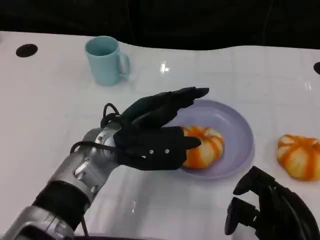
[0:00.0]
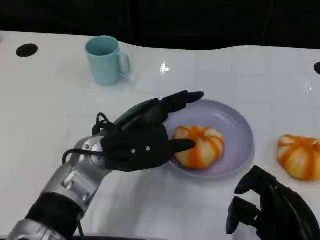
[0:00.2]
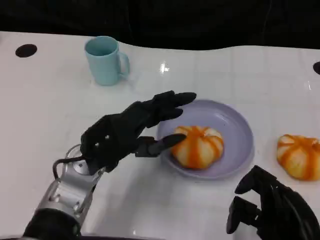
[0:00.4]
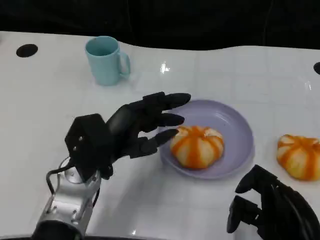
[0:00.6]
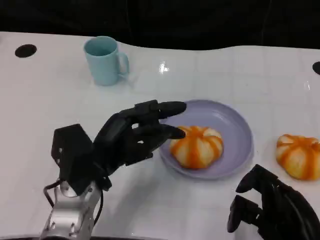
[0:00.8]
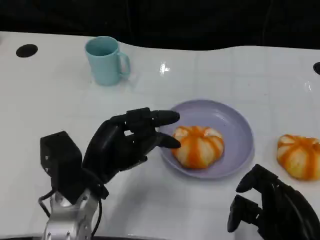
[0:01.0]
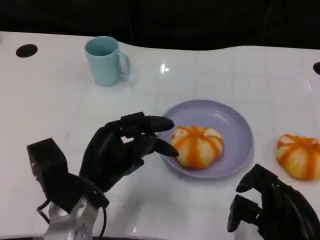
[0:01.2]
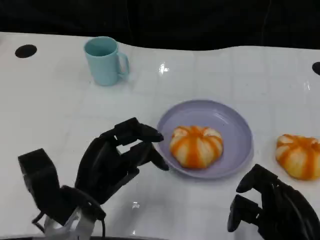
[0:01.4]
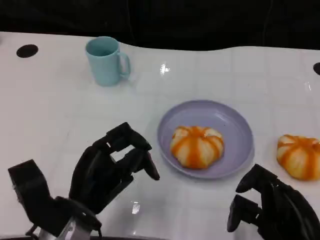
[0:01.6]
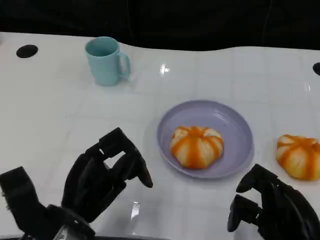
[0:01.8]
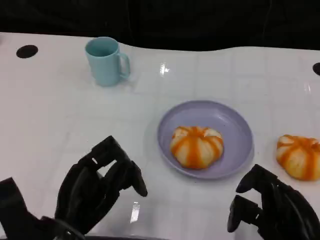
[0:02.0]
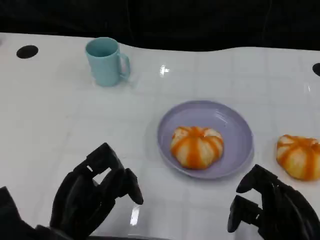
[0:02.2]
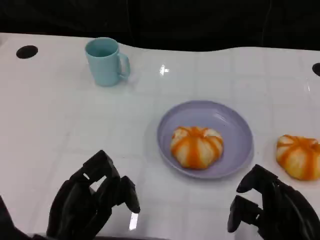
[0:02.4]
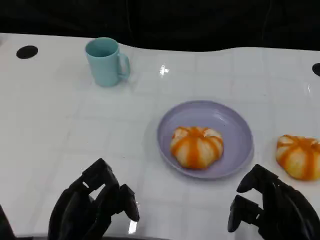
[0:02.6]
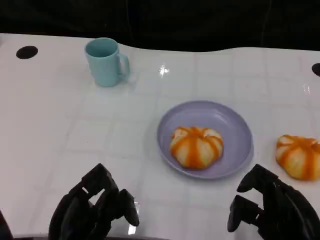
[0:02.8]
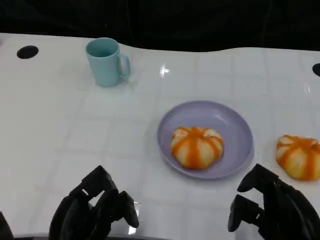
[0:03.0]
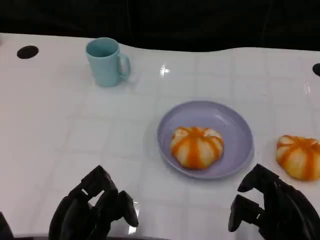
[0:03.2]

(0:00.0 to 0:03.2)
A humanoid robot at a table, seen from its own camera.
Task of the whole recording: Grasp the bread from the table and place it into the plate.
0:00.0 - 0:01.6: The left hand goes some 10 cm backward, to the left and downward.
0:01.6 - 0:03.2: The left hand travels backward by about 5 cm.

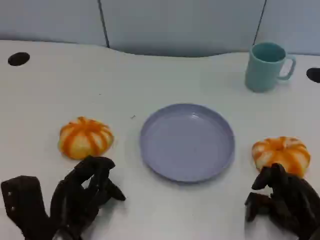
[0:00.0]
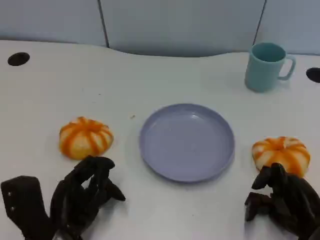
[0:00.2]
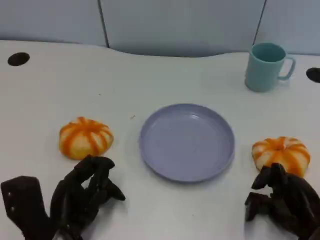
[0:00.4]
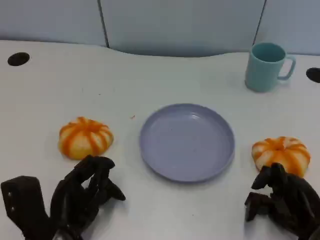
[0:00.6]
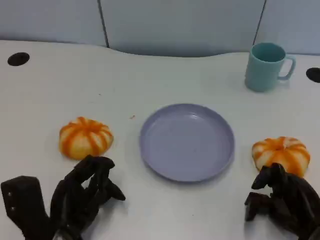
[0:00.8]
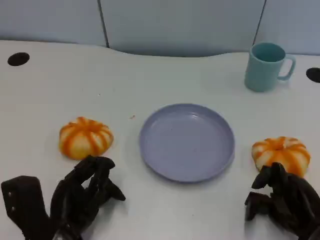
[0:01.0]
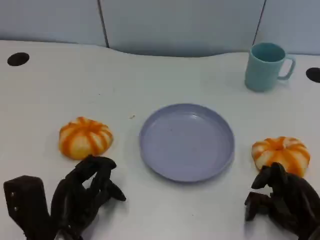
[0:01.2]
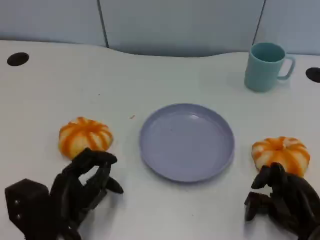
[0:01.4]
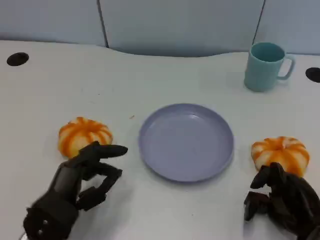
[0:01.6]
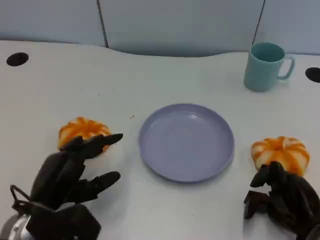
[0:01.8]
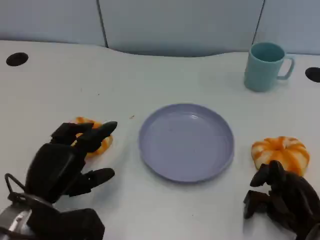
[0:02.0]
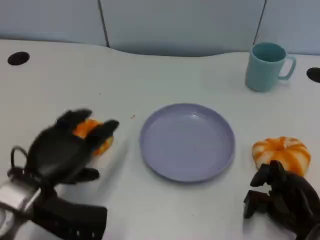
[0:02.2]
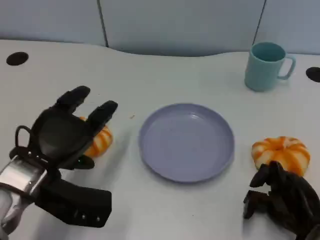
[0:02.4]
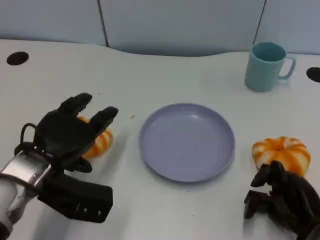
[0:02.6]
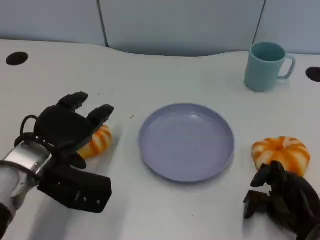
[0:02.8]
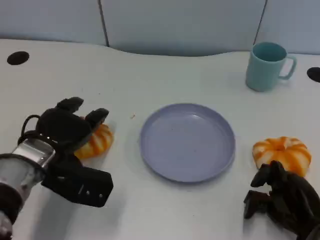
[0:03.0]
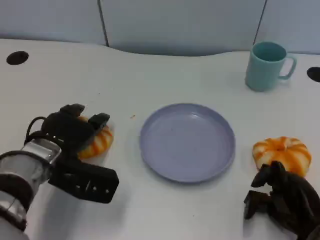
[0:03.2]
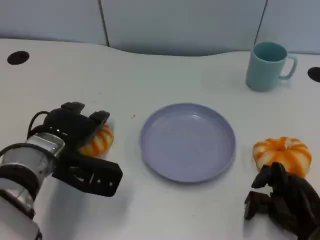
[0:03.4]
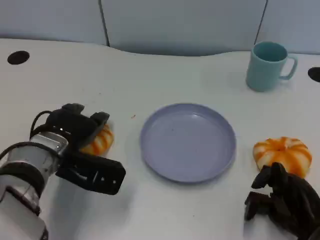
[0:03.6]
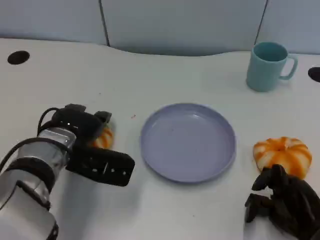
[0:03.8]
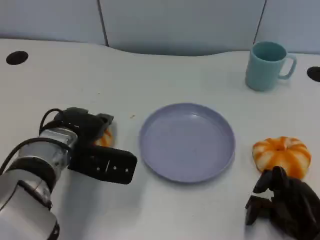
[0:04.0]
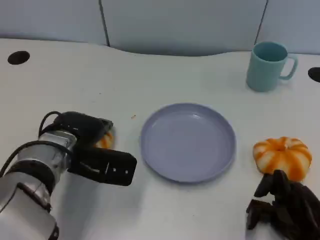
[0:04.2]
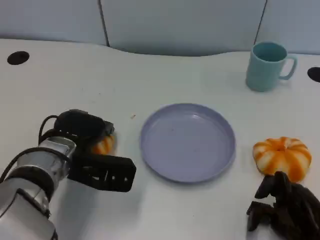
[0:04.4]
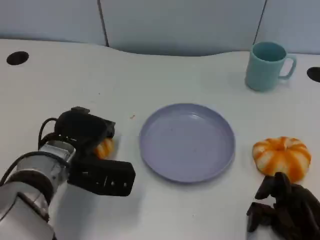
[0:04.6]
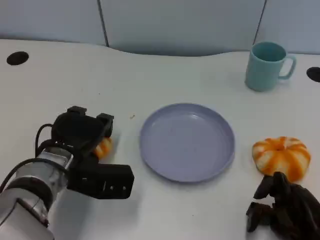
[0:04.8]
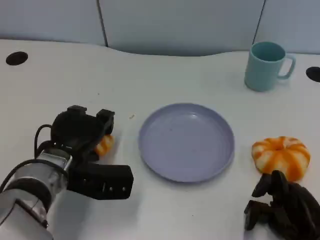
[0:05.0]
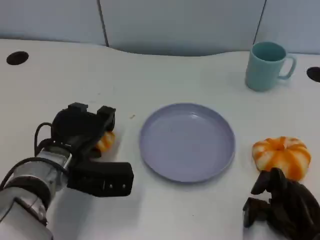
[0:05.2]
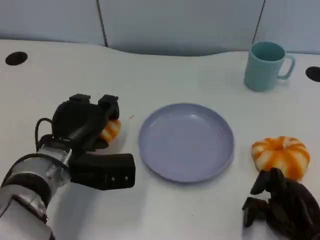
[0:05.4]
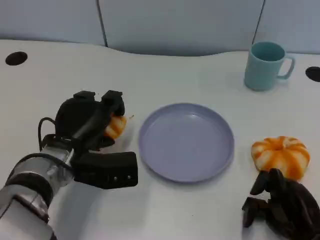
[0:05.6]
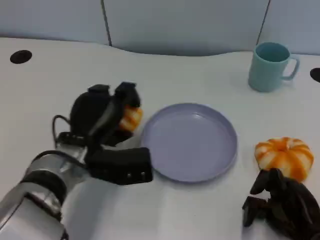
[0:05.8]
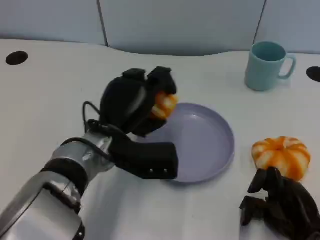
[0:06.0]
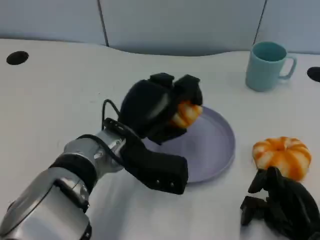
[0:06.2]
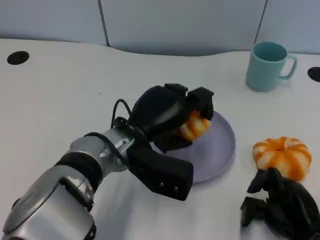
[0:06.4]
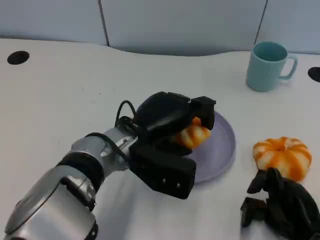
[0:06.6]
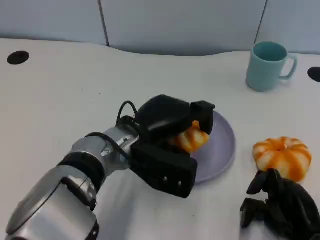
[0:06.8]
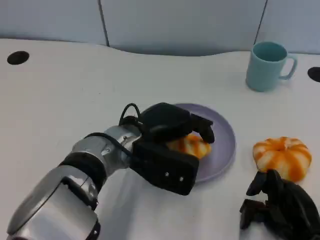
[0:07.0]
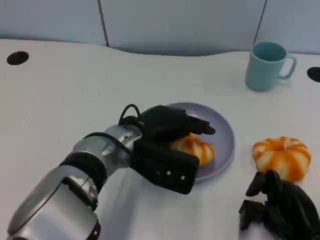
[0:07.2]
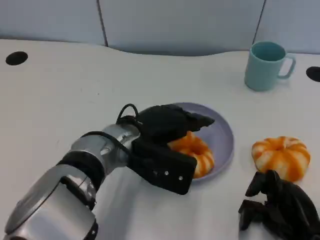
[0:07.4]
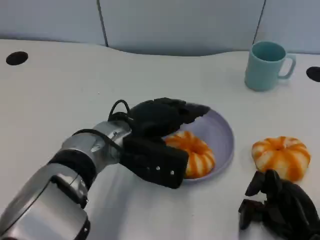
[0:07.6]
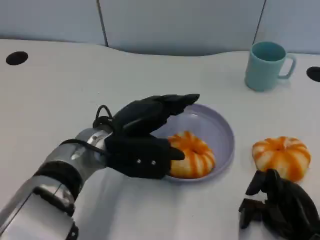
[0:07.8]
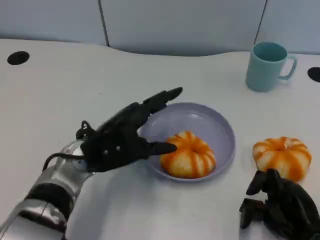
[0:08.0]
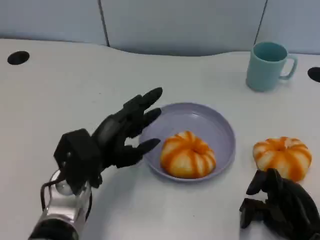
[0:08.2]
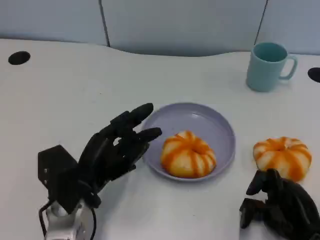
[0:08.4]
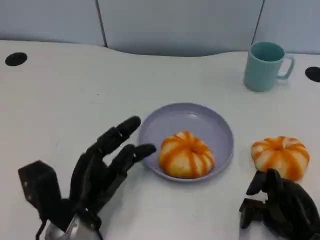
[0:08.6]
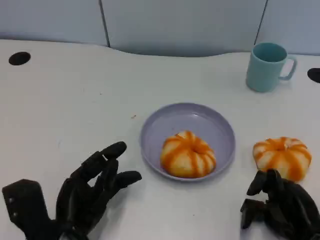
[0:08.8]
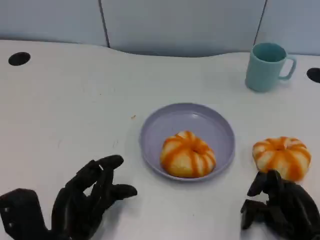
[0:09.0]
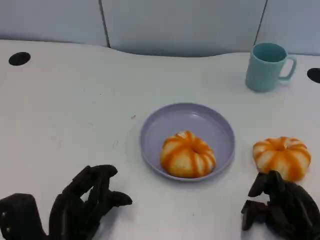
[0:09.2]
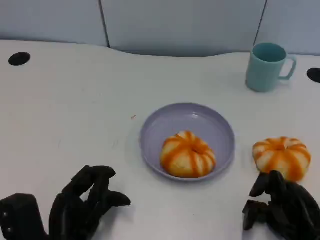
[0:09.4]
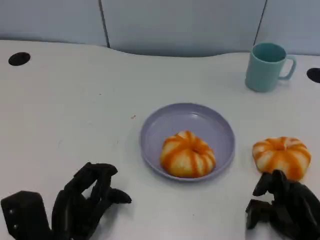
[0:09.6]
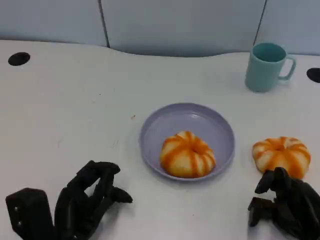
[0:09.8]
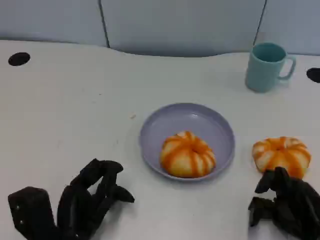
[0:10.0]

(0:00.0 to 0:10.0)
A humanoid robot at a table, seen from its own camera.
Task of the whole recording: Grasp the bread from the table and place it into the plate.
0:00.0 - 0:01.4: The hands make only small movements.
0:01.4 - 0:02.8: The left hand goes about 10 cm forward and upward.
0:05.8 - 0:07.2: The left hand heads to the right, covering about 5 cm.
0:07.2 - 0:08.6: The left hand moves to the left, backward and downward, approximately 15 cm.
0:08.6 - 0:10.0: The hands move only a little.

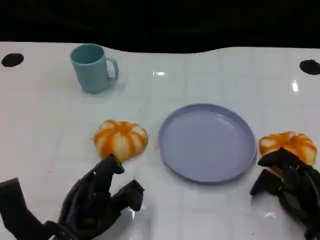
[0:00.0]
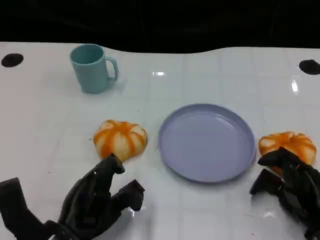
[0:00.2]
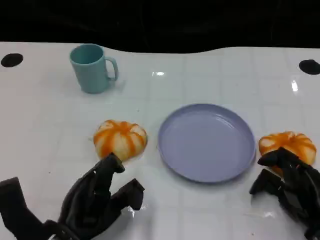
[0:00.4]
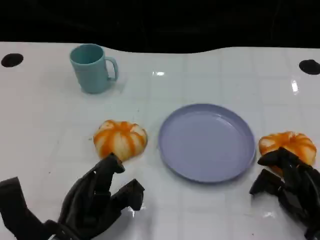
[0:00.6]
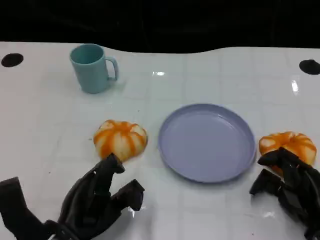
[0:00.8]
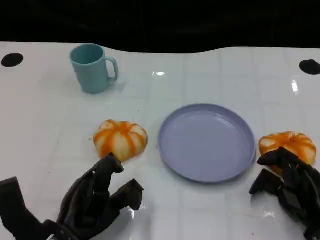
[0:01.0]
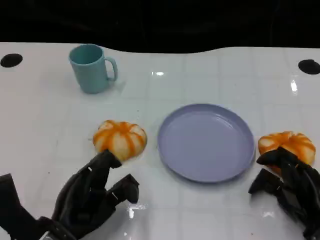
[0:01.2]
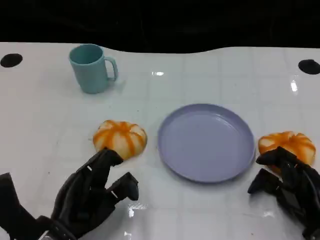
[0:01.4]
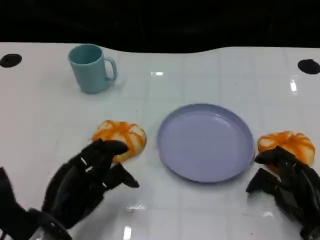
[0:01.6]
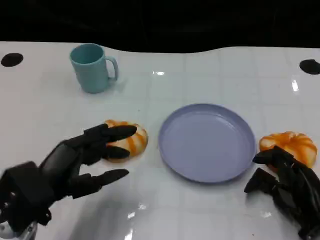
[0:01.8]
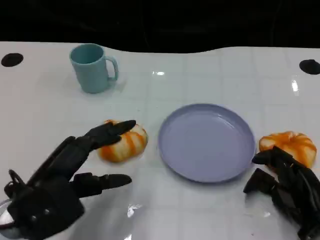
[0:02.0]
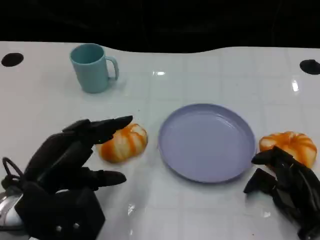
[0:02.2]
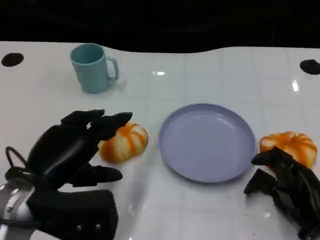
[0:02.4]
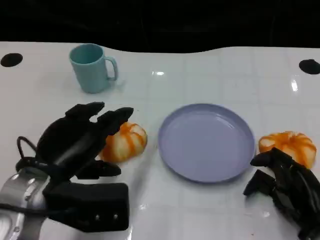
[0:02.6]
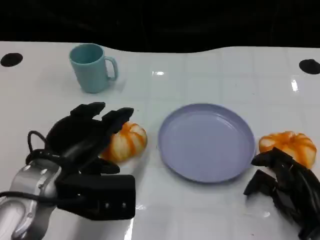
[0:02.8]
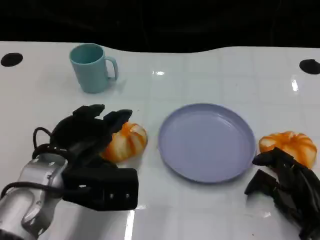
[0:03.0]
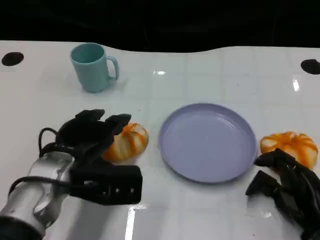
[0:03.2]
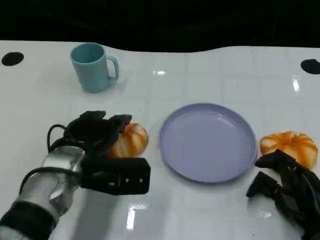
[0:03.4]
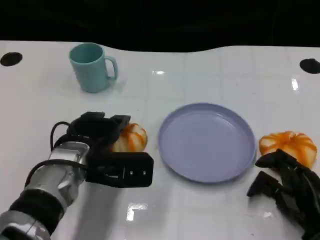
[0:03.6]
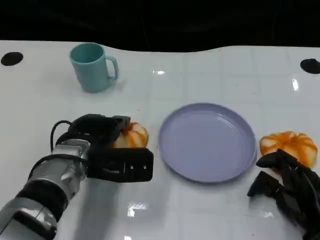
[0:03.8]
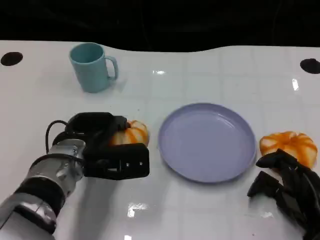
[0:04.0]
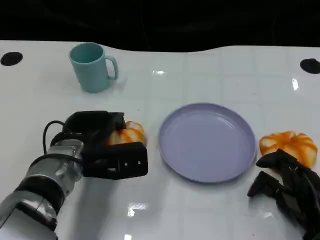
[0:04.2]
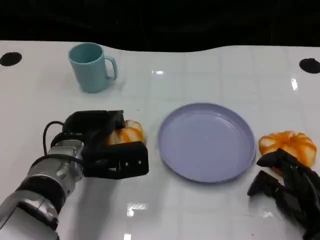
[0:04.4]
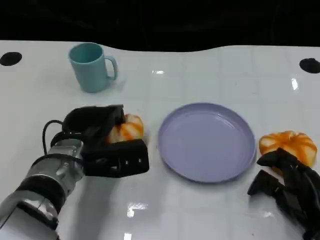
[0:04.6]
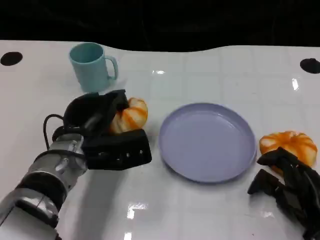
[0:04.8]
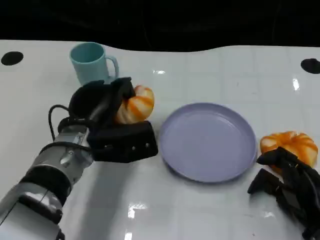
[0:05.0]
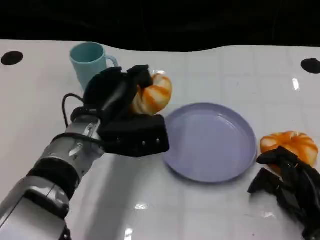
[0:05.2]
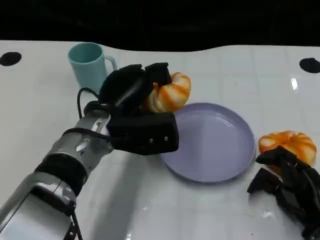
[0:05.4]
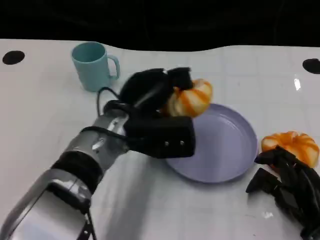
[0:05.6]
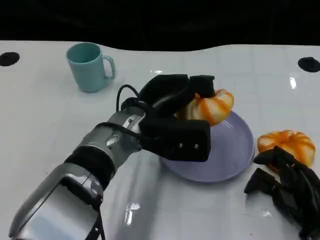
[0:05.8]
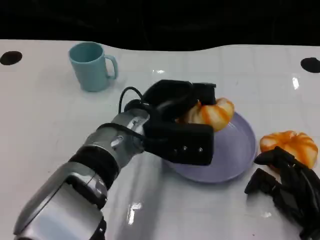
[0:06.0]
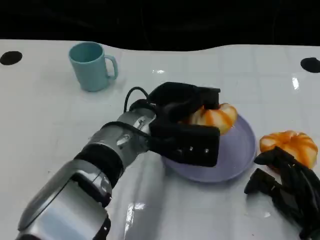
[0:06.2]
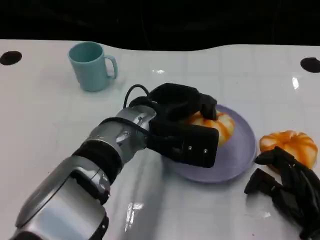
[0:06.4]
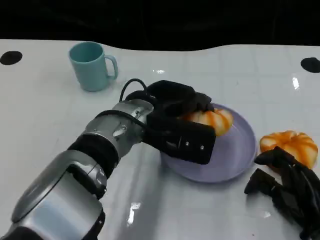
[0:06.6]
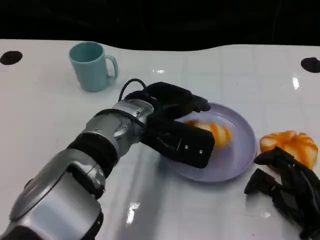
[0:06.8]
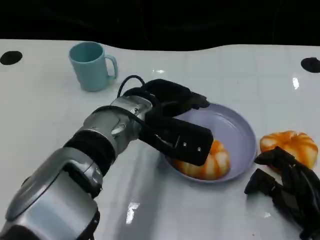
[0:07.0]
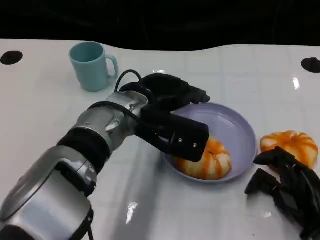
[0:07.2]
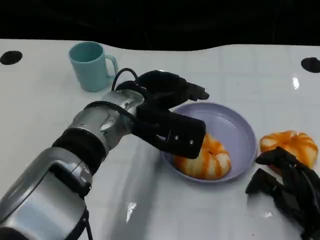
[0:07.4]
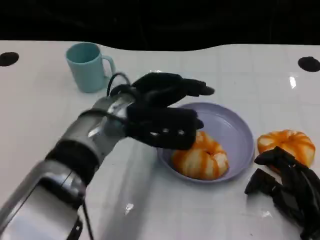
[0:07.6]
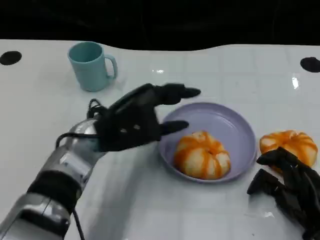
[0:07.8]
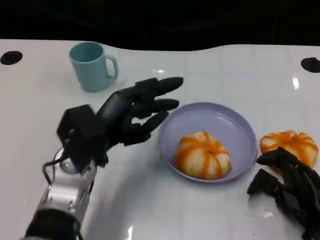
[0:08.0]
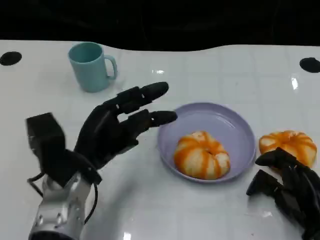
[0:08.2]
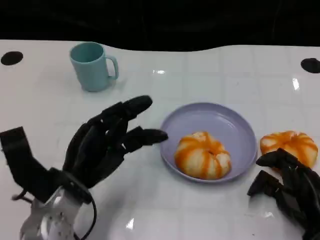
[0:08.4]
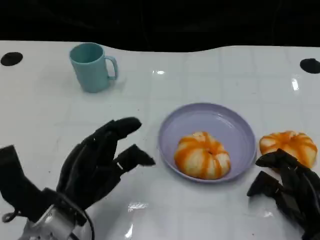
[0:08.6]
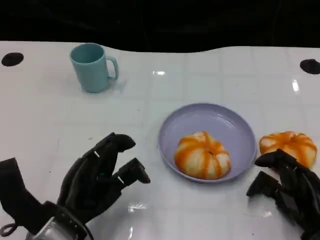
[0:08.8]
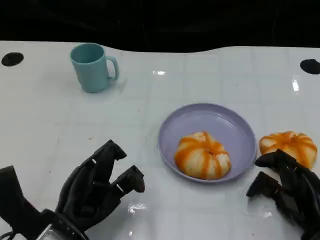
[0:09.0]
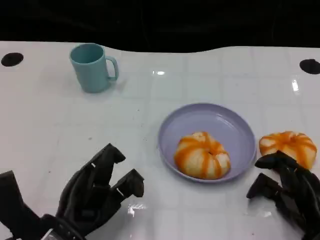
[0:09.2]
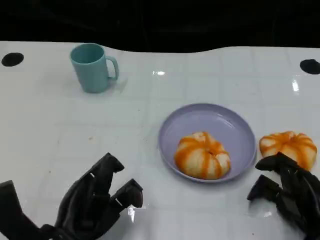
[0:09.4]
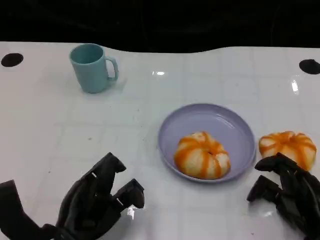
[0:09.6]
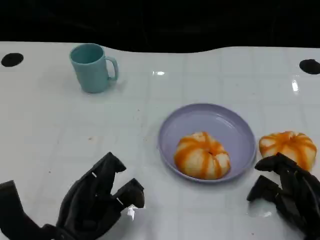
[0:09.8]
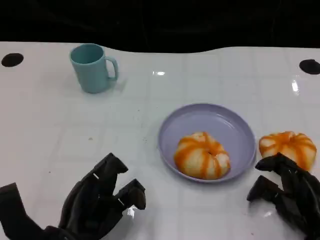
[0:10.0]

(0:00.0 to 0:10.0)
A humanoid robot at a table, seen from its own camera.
Task of the whole recording: Grasp the bread from the table and place it into the plate.
0:00.0 - 0:01.4: Both hands stay put.
0:01.4 - 0:02.8: The left hand shifts about 10 cm upward and forward.
0:02.8 - 0:04.2: The left hand moves forward, roughly 5 cm.
0:04.2 - 0:05.8: The left hand travels to the right and upward by approximately 10 cm.
0:07.2 - 0:08.6: The left hand is displaced to the left, backward and downward by approximately 20 cm.
0:08.6 - 0:10.0: The hands make only small movements.
